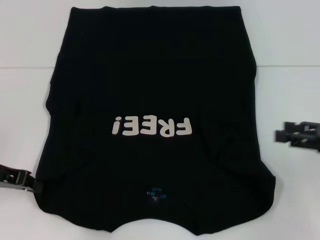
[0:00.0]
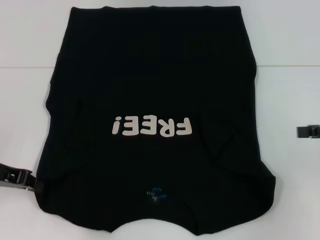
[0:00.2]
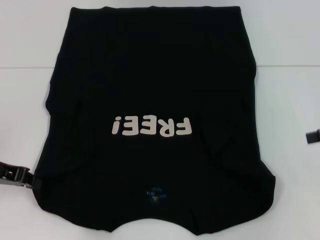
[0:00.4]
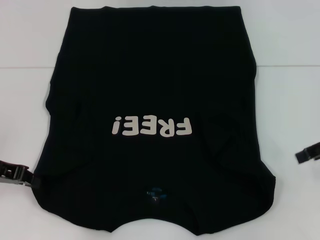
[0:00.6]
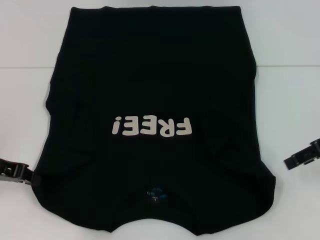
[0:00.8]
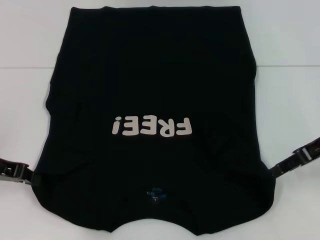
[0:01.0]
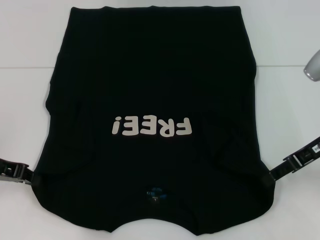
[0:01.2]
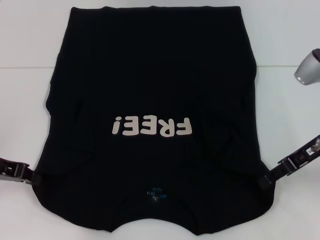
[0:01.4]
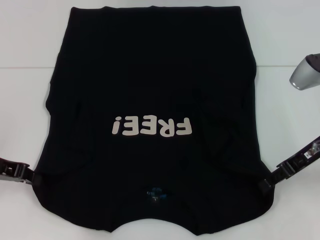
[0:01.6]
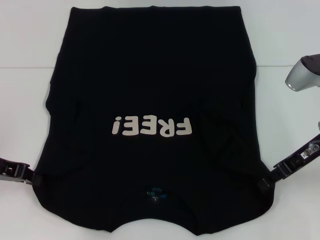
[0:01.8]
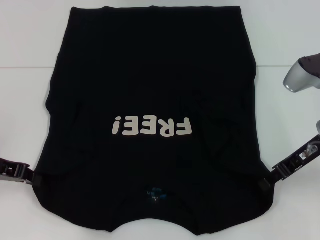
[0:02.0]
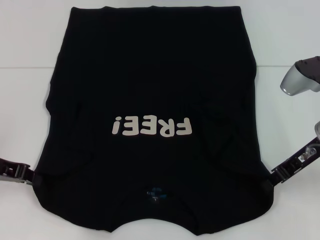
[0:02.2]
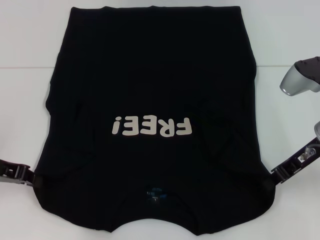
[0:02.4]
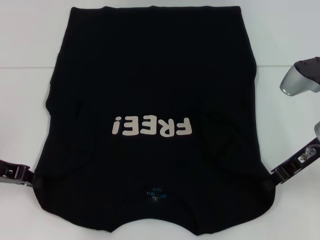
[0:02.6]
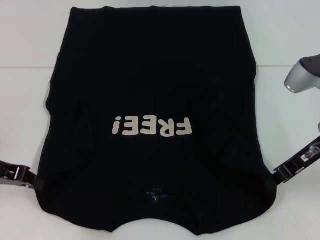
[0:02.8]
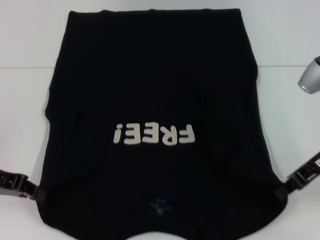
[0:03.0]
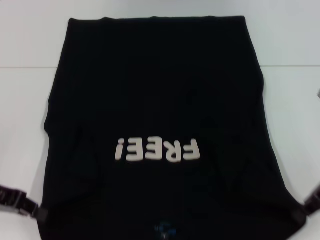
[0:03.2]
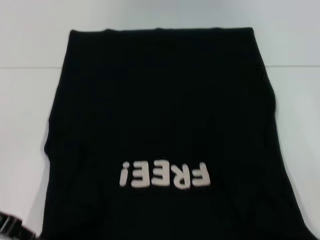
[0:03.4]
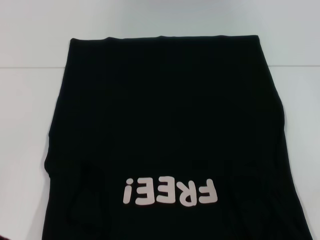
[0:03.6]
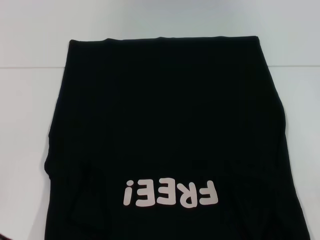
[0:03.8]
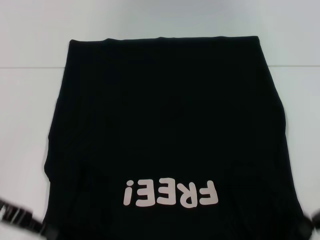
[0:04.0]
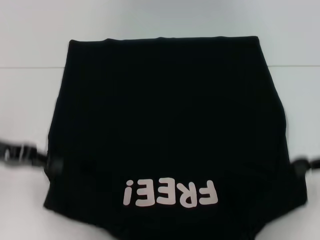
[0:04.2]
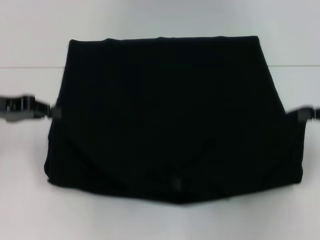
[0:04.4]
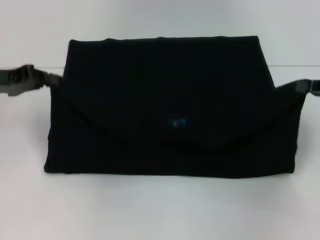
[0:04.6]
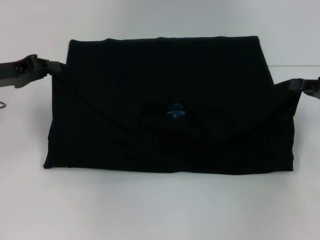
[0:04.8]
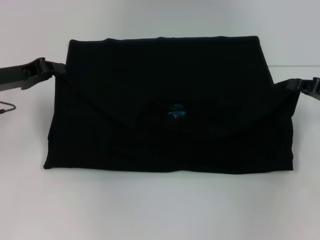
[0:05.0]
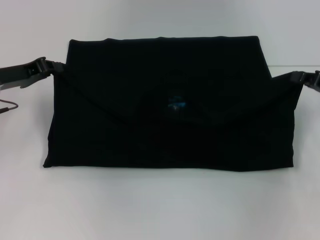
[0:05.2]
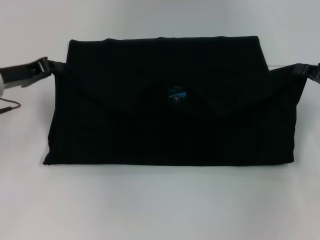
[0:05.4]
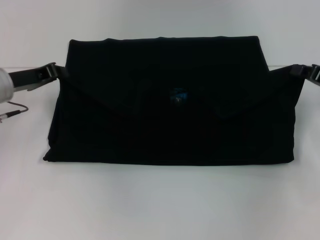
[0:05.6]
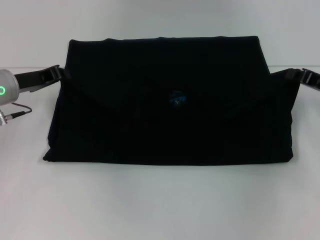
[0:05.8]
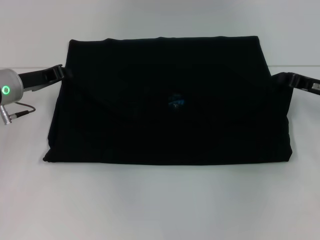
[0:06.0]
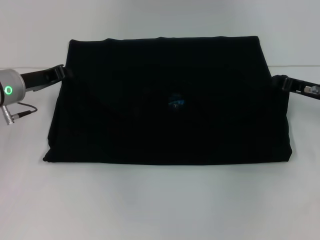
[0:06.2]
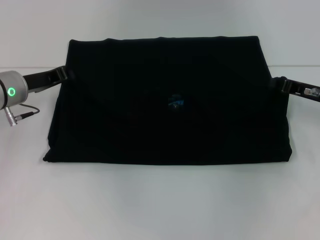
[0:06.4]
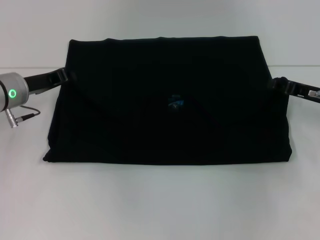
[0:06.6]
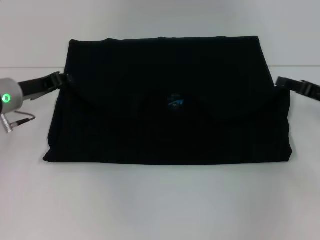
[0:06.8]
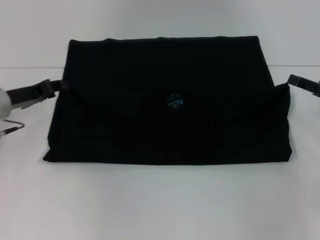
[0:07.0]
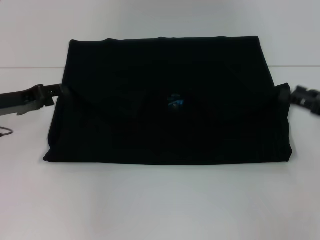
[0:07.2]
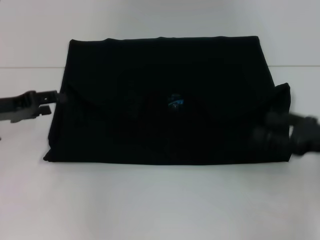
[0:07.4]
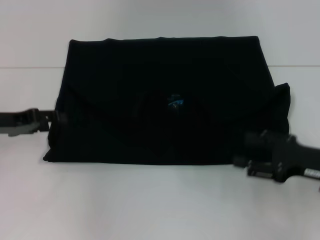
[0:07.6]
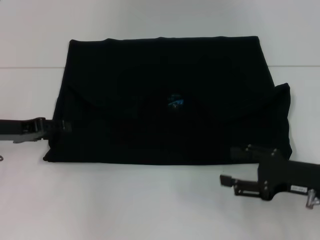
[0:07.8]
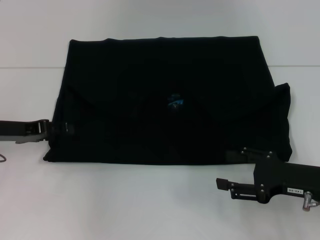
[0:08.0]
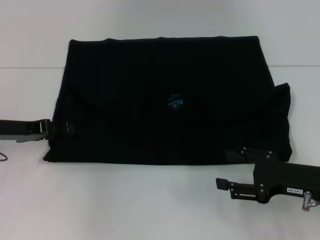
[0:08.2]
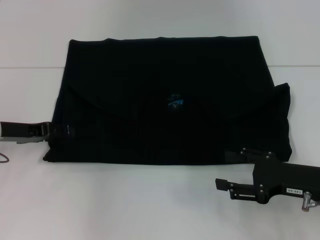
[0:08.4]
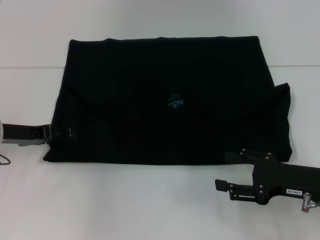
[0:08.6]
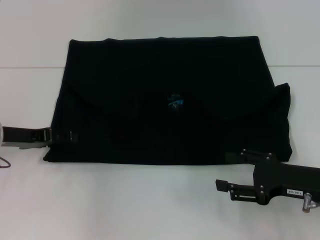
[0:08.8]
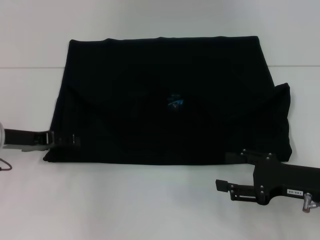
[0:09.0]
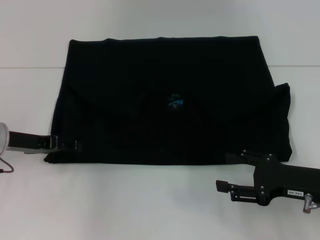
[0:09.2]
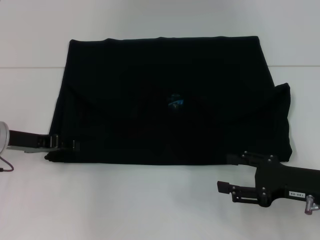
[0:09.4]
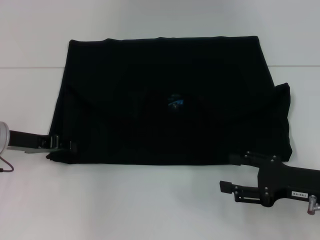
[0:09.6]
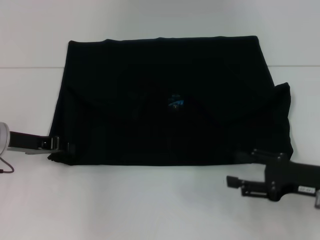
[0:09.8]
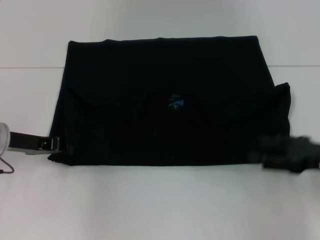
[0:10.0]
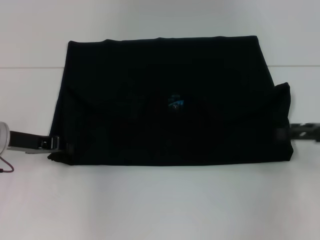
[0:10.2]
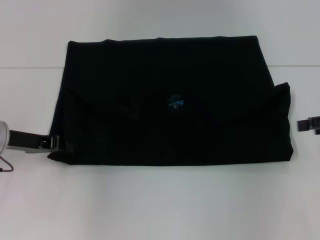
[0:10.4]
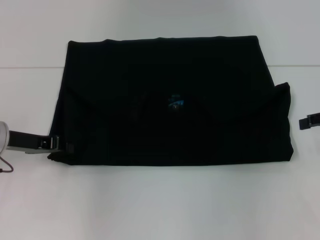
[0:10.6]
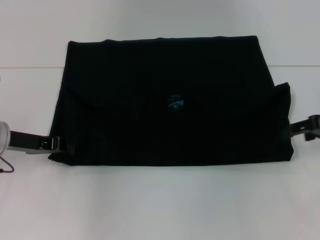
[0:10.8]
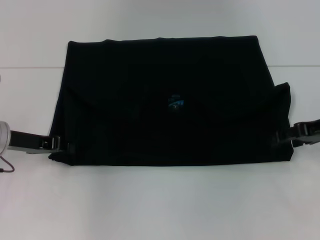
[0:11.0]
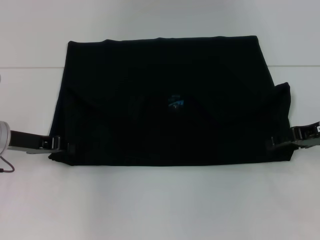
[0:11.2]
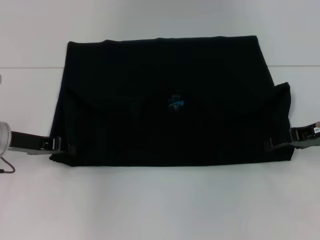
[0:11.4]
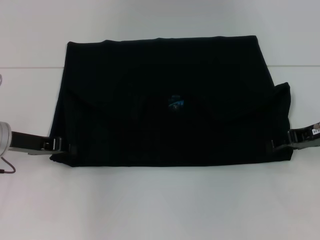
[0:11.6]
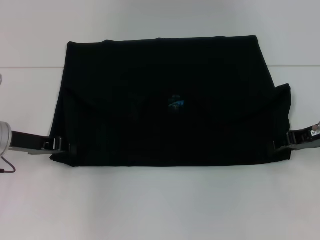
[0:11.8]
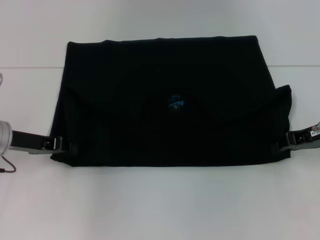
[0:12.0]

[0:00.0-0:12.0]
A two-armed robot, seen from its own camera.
Step, 0:00.0 to 0:02.8: Grab the bottom right corner with your right hand.
Step, 0:03.0 to 0:06.6: Fold the clothes with your left hand.
Step, 0:03.0 to 0:06.6: Fold the clothes with your right hand.
0:00.0 to 0:01.6: The right gripper is displaced to the left and forward by some 10 cm.
0:01.6 to 0:03.0: The right gripper closes.
0:03.0 to 0:04.4: The left gripper changes place by roughly 5 cm; the right gripper goes roughly 10 cm to the right.
0:04.4 to 0:06.0: The left gripper is displaced downward, forward and to the right by approximately 10 cm. Meanwhile the right gripper goes roughly 10 cm downward, forward and to the left.
0:06.0 to 0:07.6: The left gripper moves backward and to the left, some 10 cm, and opens up. Meanwhile the right gripper shifts roughly 10 cm backward, and opens up.
0:07.6 to 0:09.0: The grippers stay close to where they were, moving slightly.
0:09.0 to 0:10.4: The right gripper heads upward, to the right and forward, covering some 15 cm; the left gripper closes up.
0:10.4 to 0:12.0: The right gripper heads to the left, covering about 5 cm, and closes up.

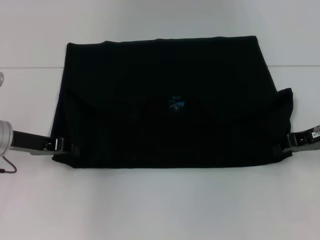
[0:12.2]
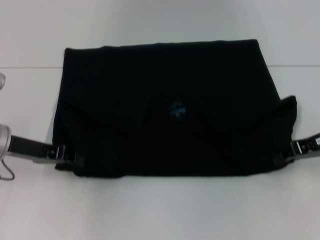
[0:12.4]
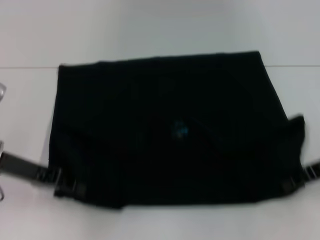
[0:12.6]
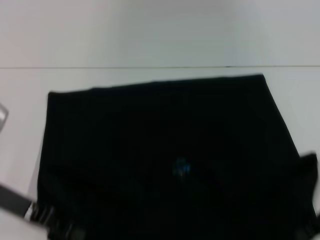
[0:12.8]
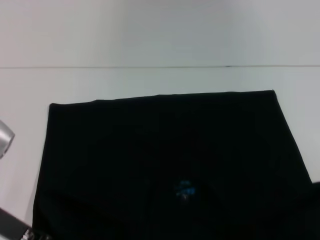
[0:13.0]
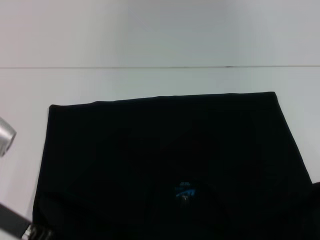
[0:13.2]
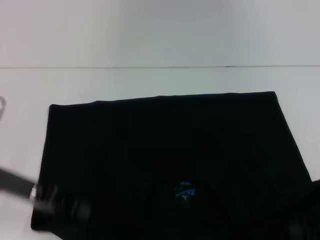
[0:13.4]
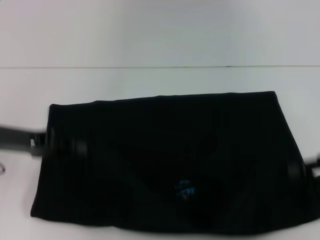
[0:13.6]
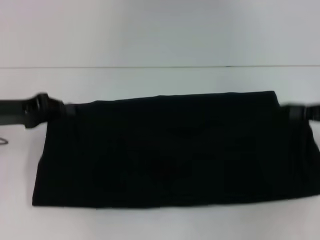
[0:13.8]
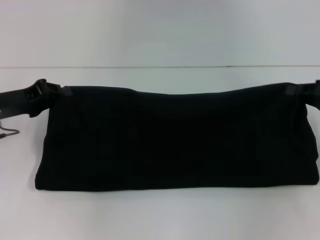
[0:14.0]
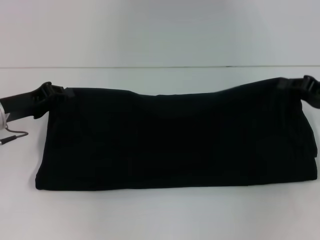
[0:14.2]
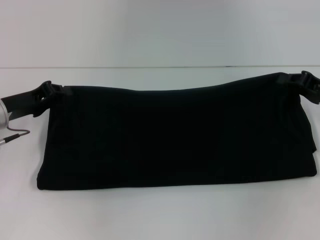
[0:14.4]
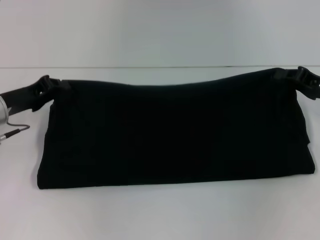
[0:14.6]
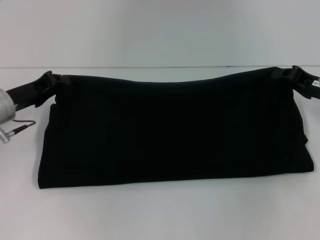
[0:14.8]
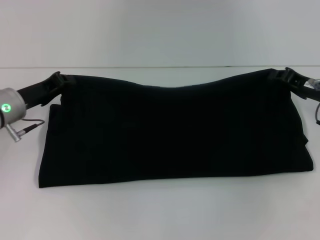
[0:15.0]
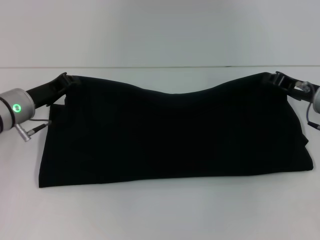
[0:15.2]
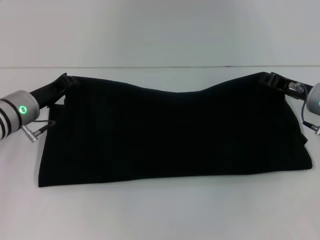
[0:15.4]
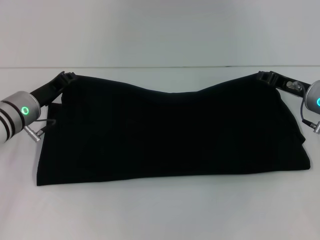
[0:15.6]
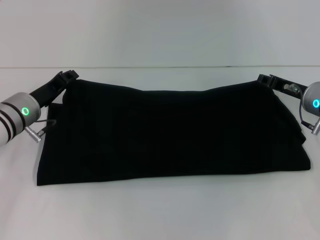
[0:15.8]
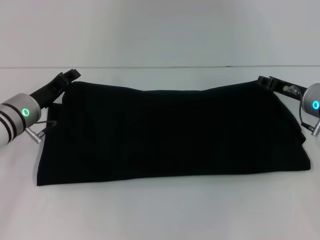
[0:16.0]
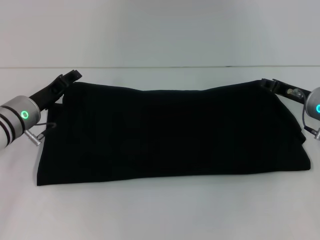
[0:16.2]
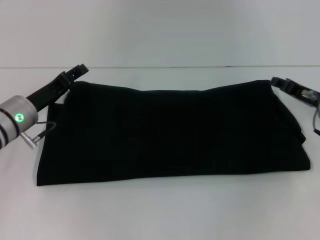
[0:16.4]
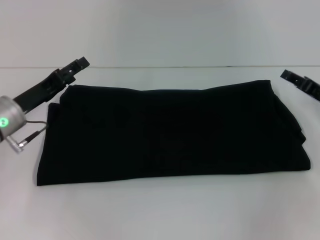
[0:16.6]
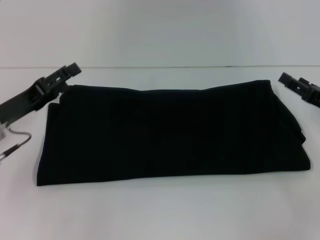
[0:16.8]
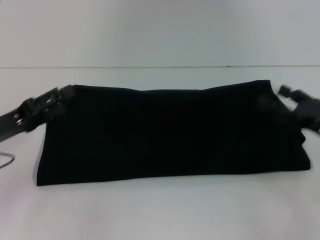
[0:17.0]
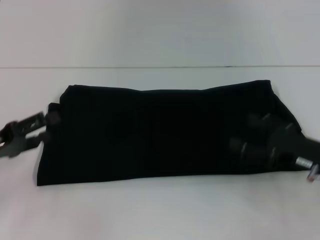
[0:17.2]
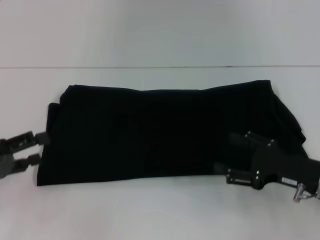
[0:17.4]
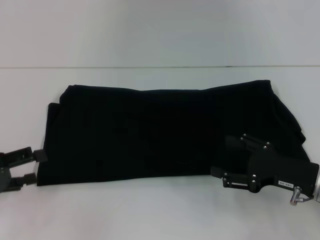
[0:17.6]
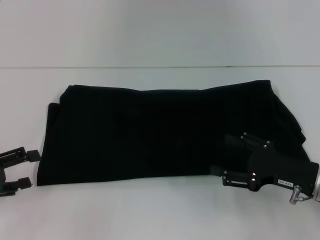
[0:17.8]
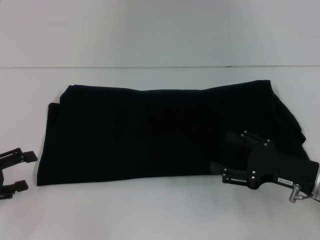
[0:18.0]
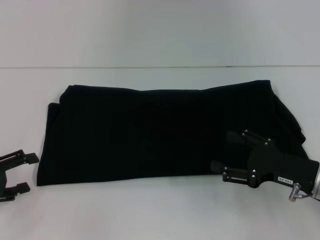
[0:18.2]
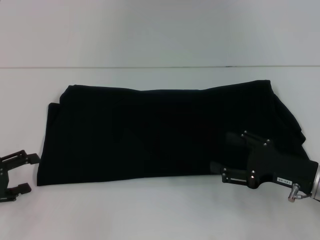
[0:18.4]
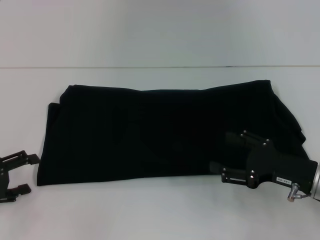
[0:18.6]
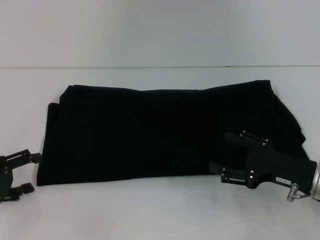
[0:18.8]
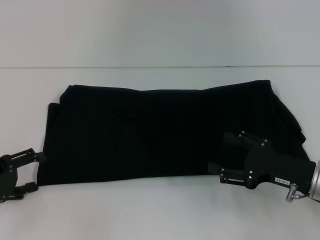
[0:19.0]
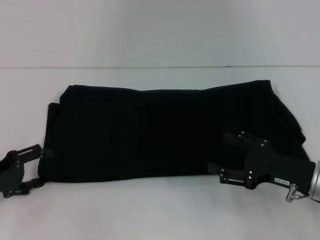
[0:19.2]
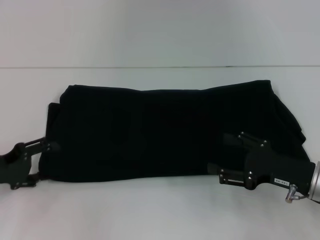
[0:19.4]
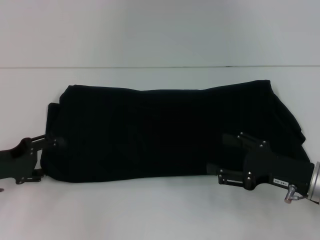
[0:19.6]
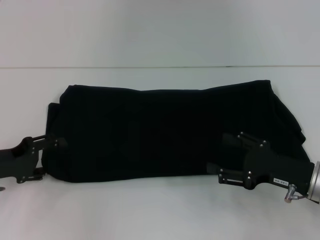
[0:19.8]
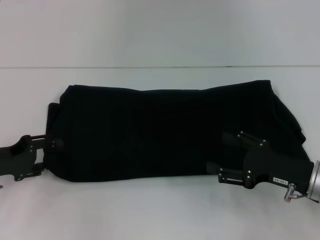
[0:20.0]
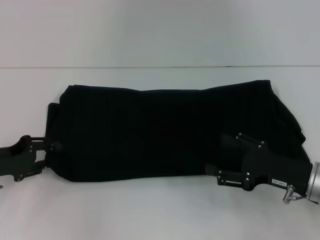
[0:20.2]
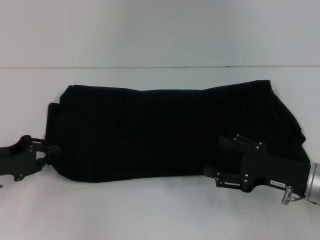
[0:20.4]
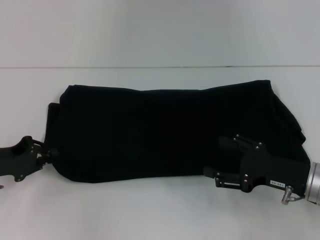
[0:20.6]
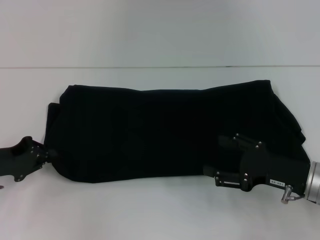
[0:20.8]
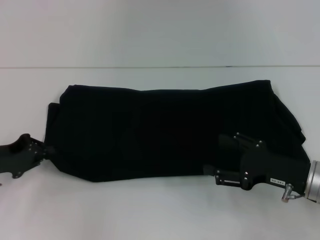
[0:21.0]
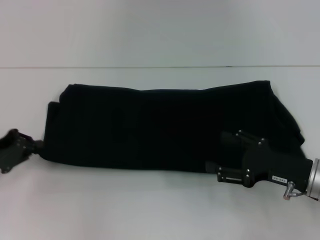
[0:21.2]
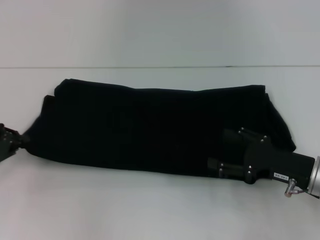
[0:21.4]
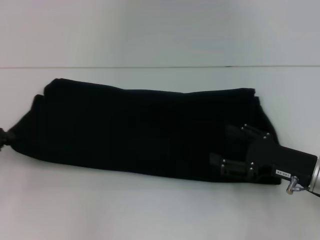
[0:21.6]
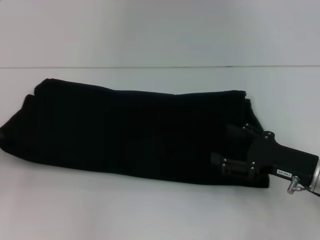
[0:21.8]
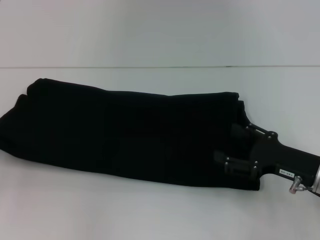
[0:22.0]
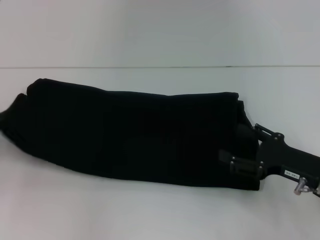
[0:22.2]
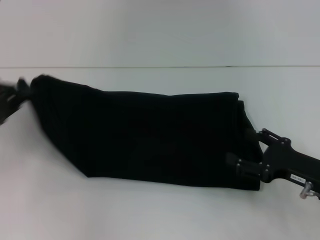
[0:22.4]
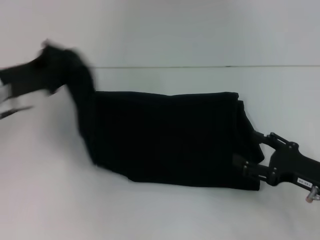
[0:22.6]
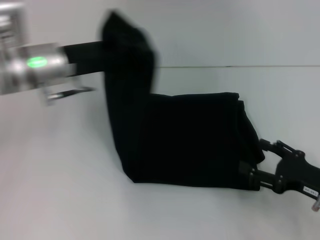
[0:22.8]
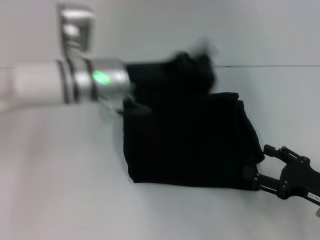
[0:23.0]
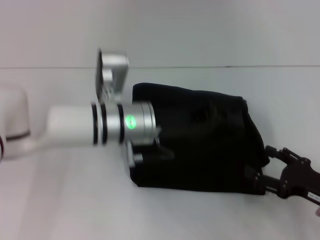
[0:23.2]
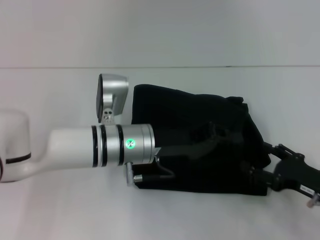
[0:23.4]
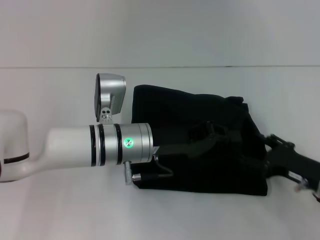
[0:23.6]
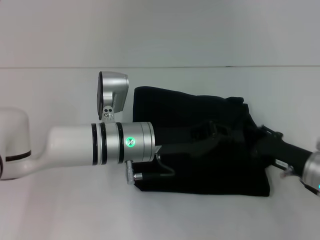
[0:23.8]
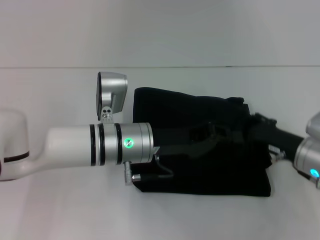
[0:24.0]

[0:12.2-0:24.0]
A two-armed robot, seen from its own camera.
Step, 0:13.0 to 0:16.4: Fold the clothes with your right hand.
0:12.2 to 0:13.6: The right gripper moves backward, approximately 5 cm. Meanwhile the left gripper moves roughly 10 cm backward and comes back.
0:13.6 to 0:15.2: The right gripper moves forward, to the left and downward, some 10 cm, while the left gripper moves forward and downward, about 10 cm.
0:15.2 to 0:16.6: The left gripper opens its fingers; the right gripper ends up roughly 5 cm from where it was, and opens its fingers.
0:16.6 to 0:18.2: The two grippers go approximately 15 cm backward and to the left. The right gripper opens its fingers.
0:18.2 to 0:19.6: The left gripper ends up roughly 5 cm from where it was.
0:19.6 to 0:21.0: The left gripper closes up.
0:21.0 to 0:22.6: The left gripper shifts some 10 cm upward, forward and to the right.
0:22.6 to 0:24.0: The right gripper goes some 5 cm forward. Meanwhile the left gripper shifts about 20 cm to the right.
